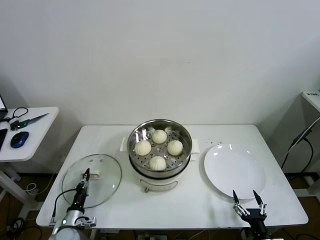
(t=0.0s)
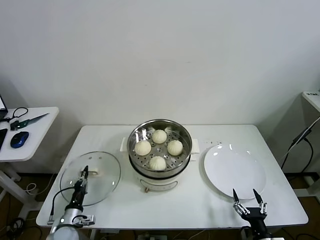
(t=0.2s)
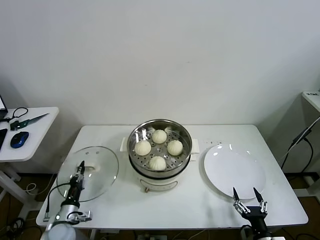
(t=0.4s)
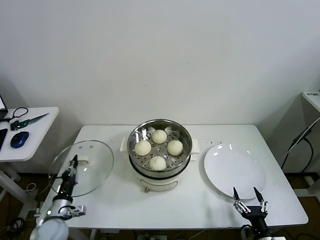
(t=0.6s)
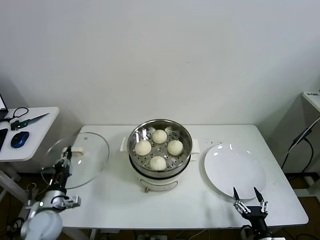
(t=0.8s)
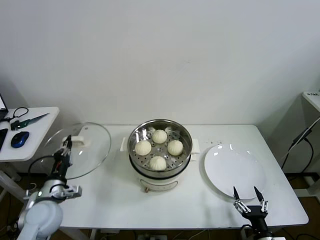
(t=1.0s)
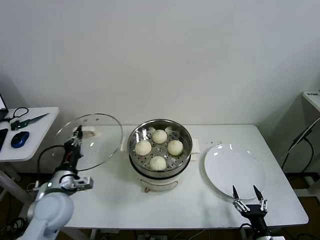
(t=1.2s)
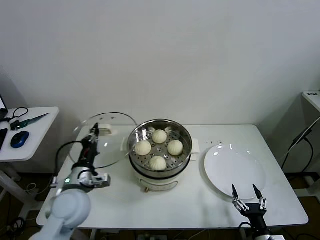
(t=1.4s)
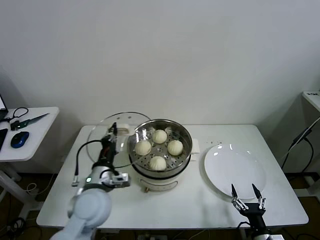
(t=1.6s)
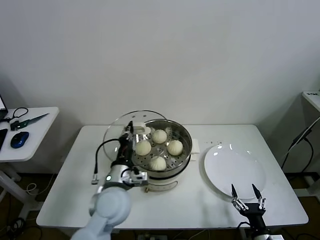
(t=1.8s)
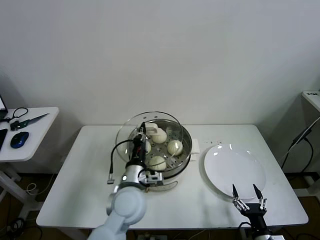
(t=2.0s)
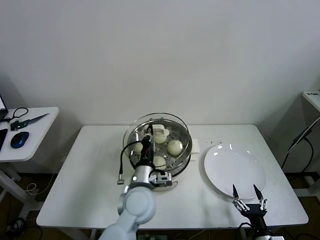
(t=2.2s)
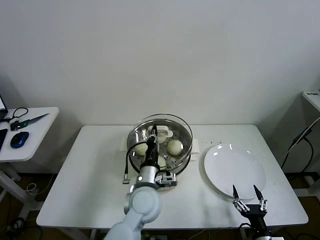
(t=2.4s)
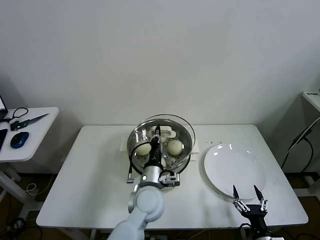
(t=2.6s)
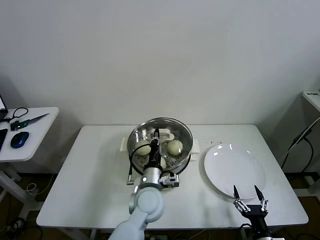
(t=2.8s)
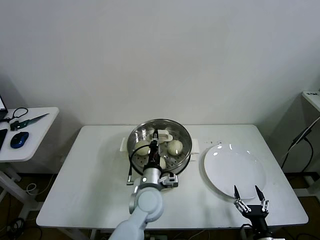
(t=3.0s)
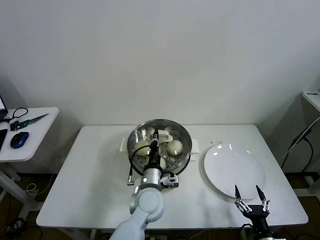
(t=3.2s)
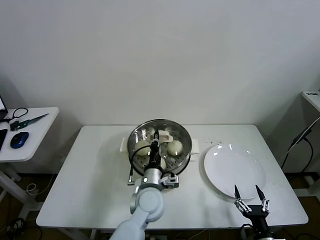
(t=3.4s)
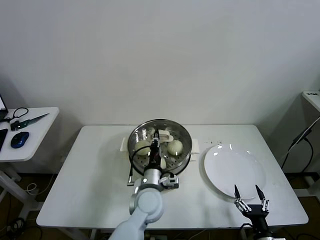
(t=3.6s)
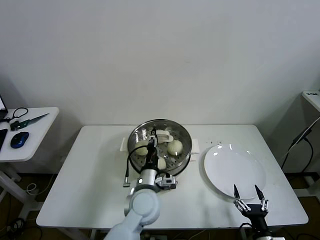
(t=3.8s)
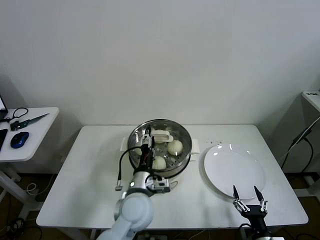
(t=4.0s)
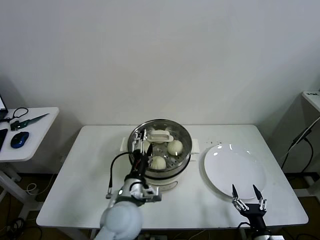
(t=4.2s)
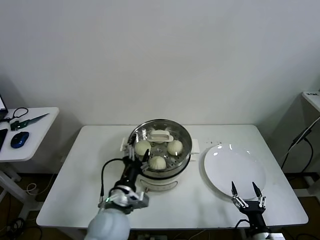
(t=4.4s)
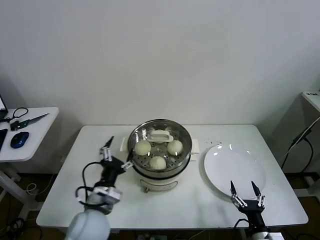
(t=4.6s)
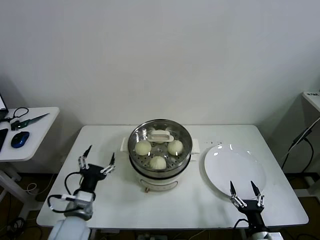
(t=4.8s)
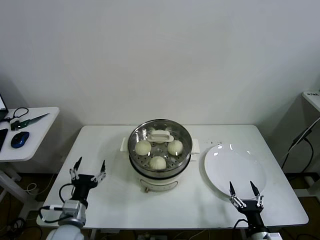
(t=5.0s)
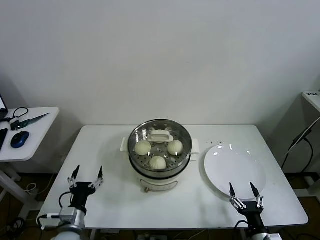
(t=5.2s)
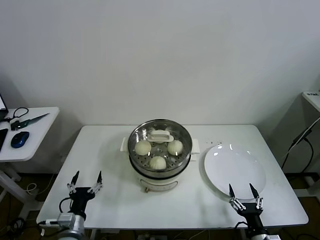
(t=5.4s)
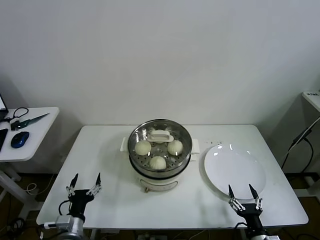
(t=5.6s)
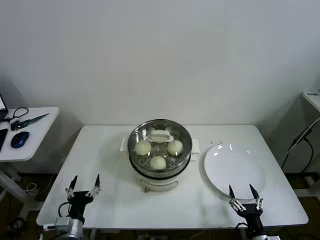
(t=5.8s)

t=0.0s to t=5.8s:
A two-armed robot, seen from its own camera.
Task of the whole recording: take steamed baozi put them in steamer then cover it.
Step, t=0.2s to t=4.2s: Place the pot lid on the steamer with left gripper.
t=0.0s to t=1.4s: The left gripper moves upward, approximately 25 cm.
t=1.4s to t=2.8s: The left gripper travels to the right by roughly 25 cm.
t=2.8s to t=4.4s: The left gripper goes approximately 10 cm to the left and backward, and opens its fingers.
t=4.4s to t=5.8s: The left gripper moves to the left and downward, roughly 20 cm.
